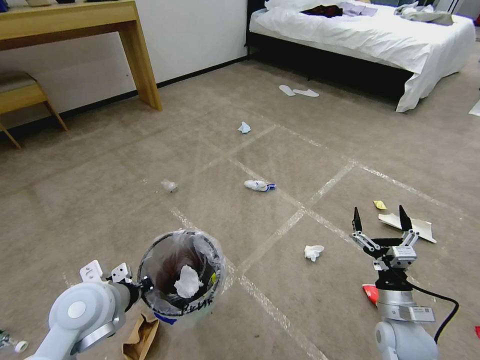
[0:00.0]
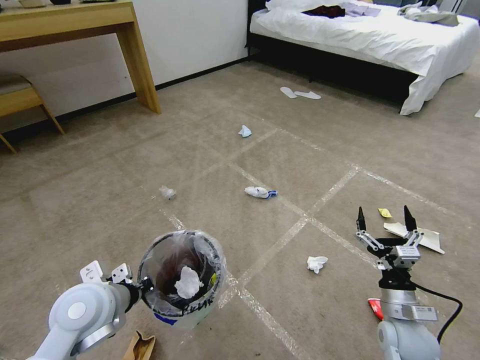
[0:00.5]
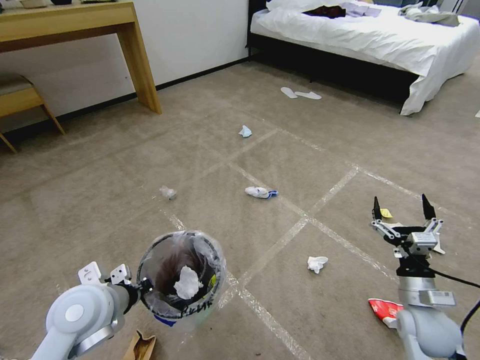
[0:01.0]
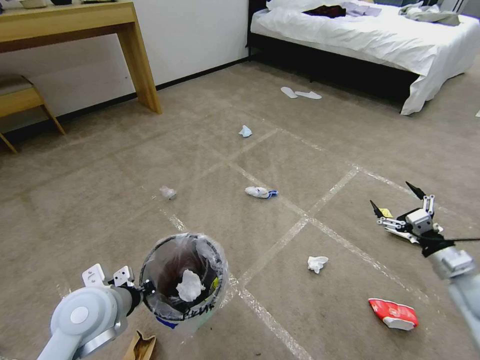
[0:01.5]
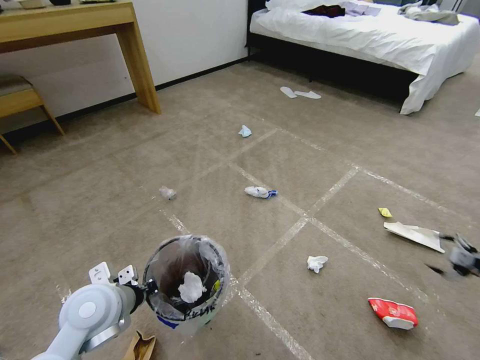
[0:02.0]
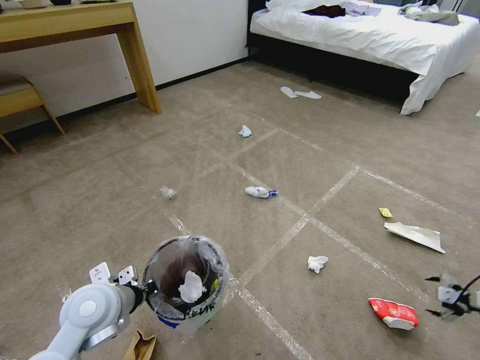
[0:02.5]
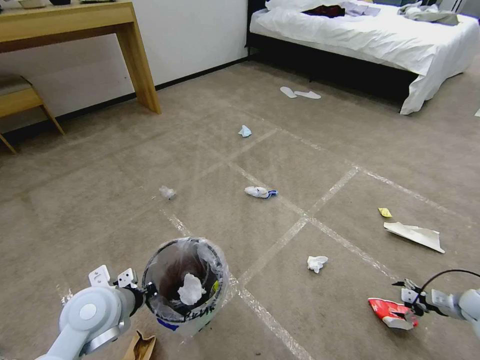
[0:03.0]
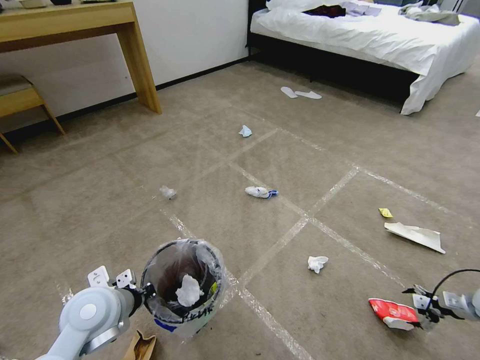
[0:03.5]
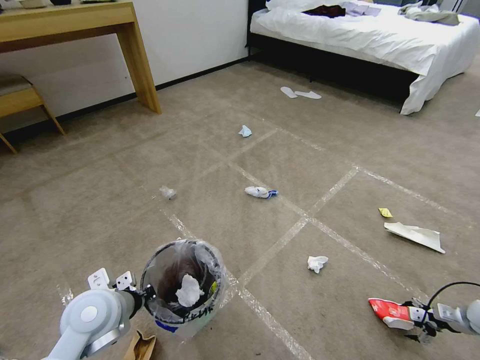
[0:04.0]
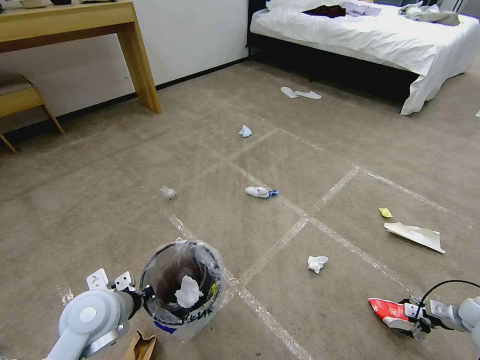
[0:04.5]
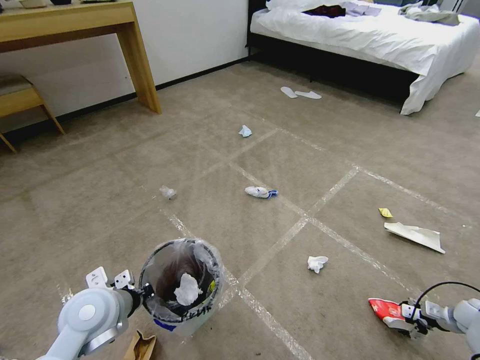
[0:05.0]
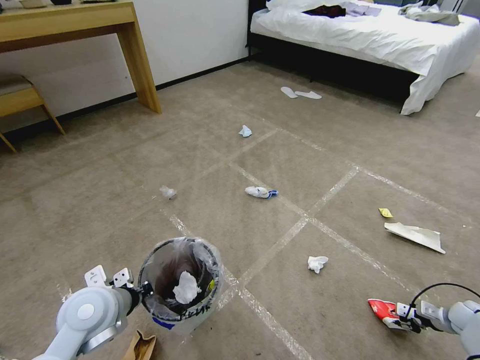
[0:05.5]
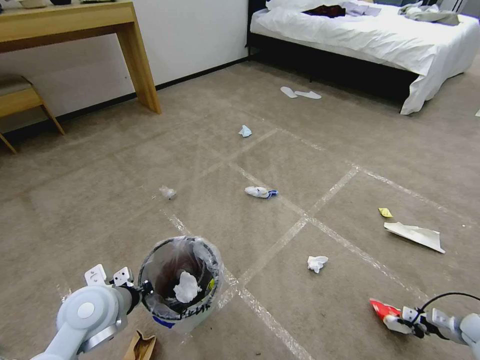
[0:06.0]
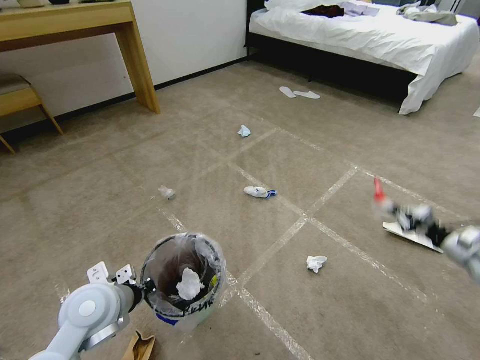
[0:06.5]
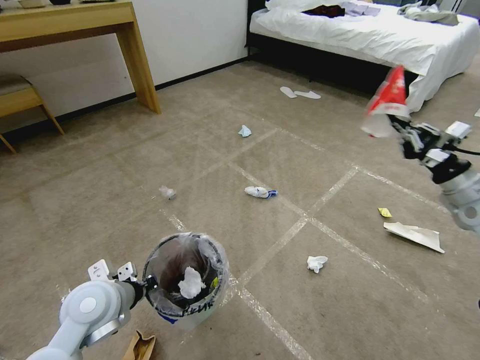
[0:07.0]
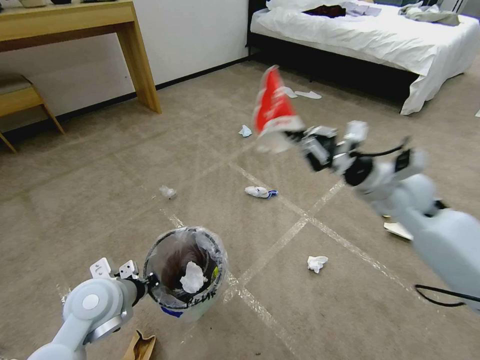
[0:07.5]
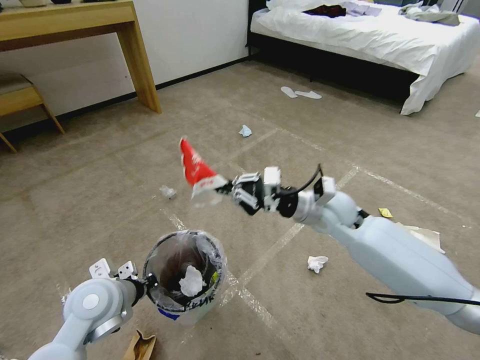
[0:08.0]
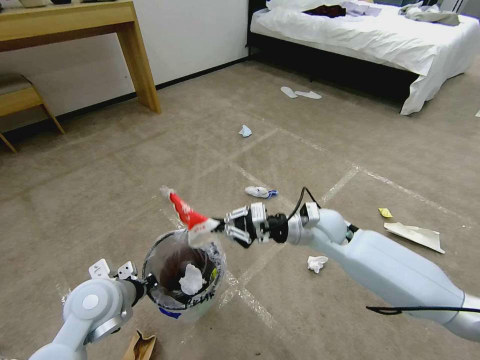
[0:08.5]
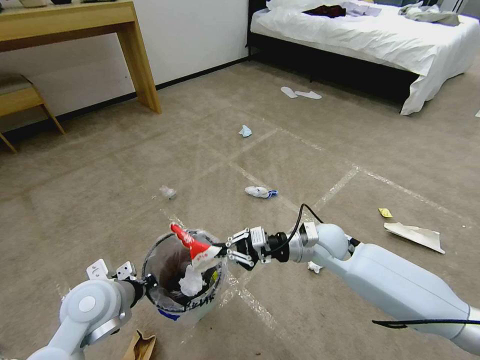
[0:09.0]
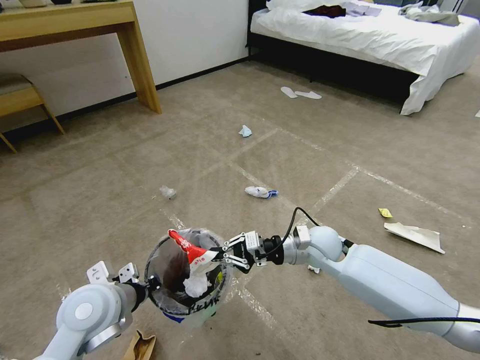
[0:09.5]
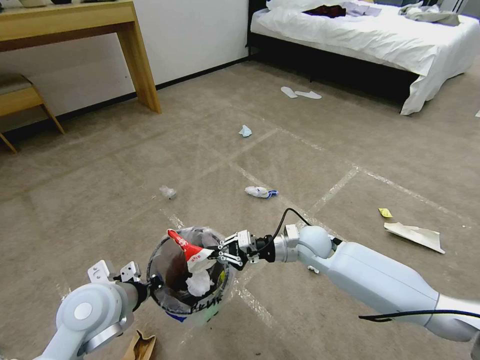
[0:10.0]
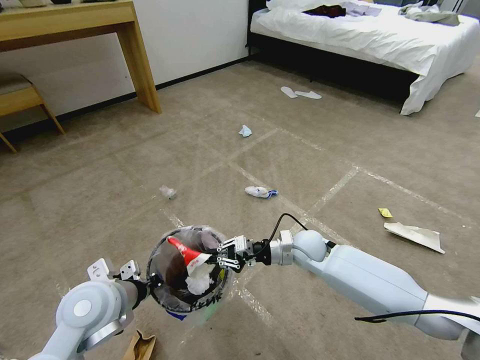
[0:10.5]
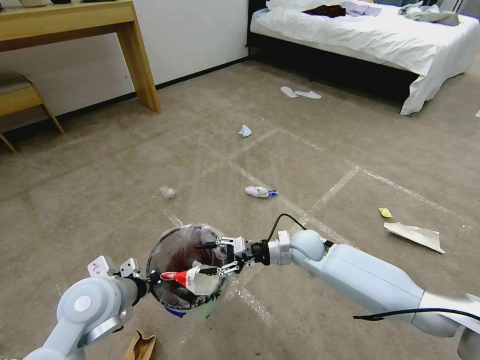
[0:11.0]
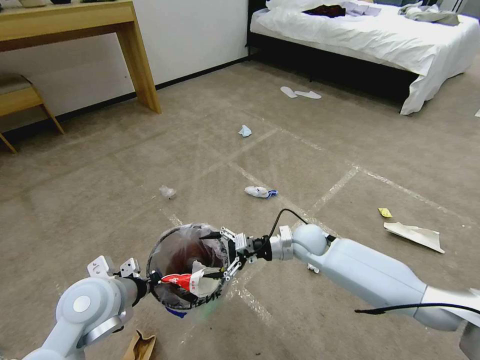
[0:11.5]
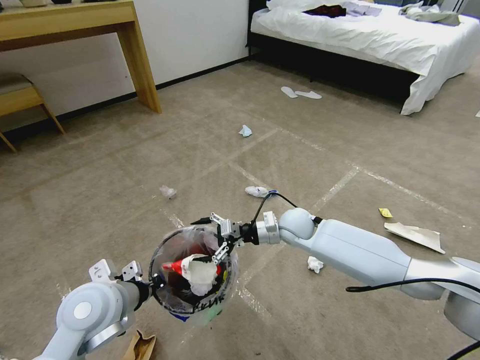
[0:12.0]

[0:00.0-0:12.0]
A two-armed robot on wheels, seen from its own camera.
Task of the whole recording: Pick up the trash bin and place the garbage on the floor into it.
0:00.0 to 0:02.0: The right gripper is displaced to the right by some 35 cm.
0:02.0 to 0:04.0: The right gripper shifts roughly 20 cm downward.
0:04.0 to 0:06.0: The right gripper closes.
0:06.0 to 0:08.0: The right gripper is displaced to the left and upward by roughly 50 cm.
0:08.0 to 0:10.0: The right gripper moves downward, about 10 cm.
0:10.0 to 0:12.0: The right gripper moves some 5 cm, and opens its fingers.

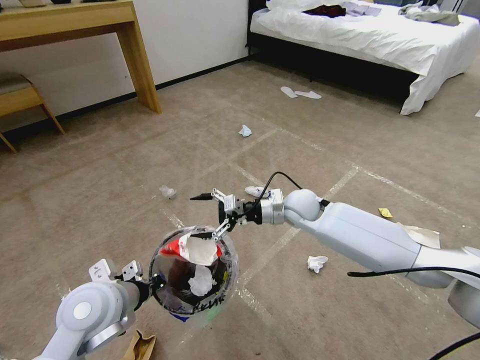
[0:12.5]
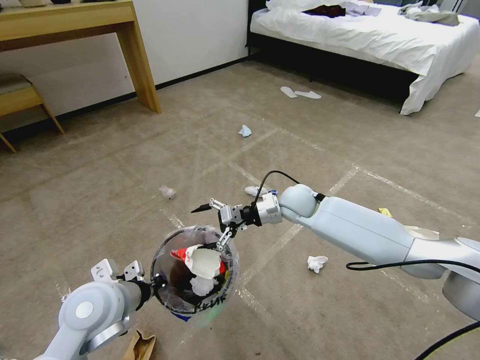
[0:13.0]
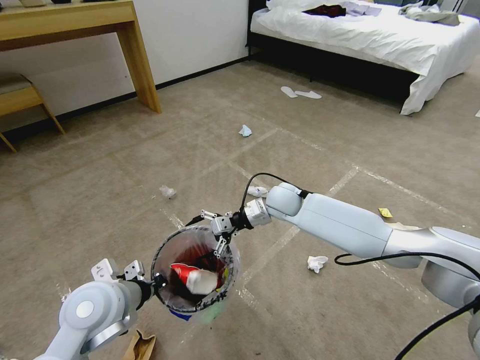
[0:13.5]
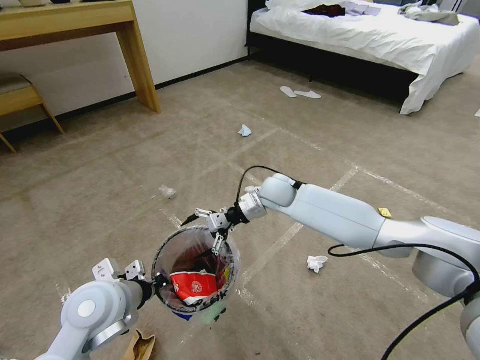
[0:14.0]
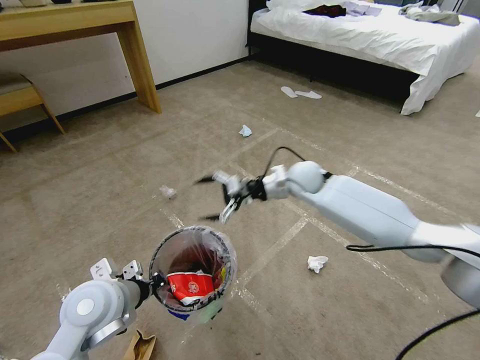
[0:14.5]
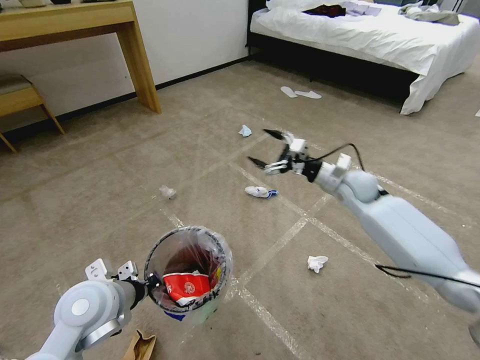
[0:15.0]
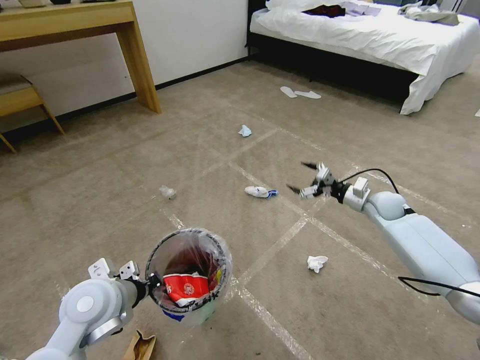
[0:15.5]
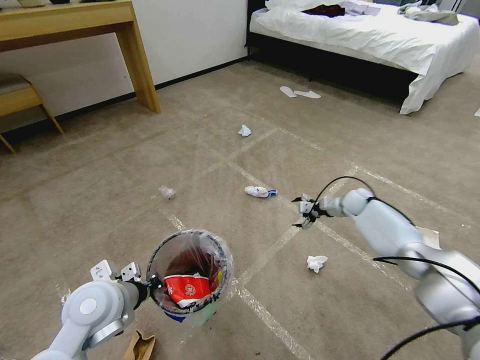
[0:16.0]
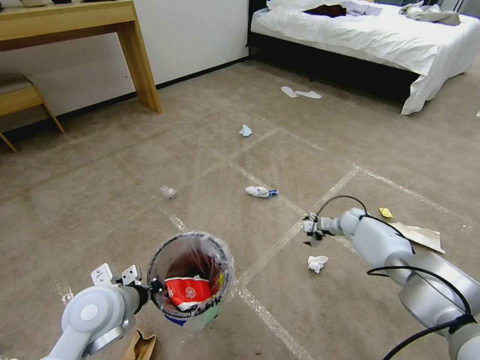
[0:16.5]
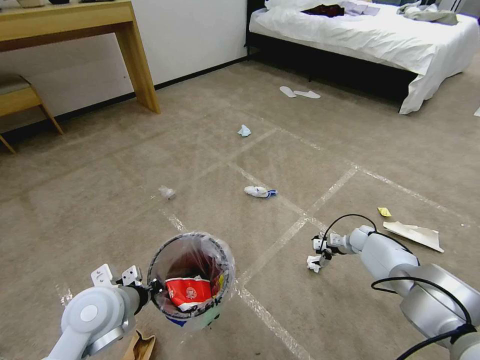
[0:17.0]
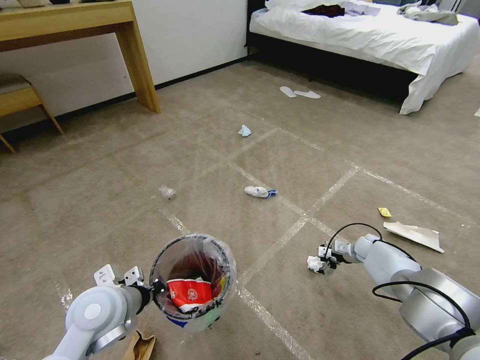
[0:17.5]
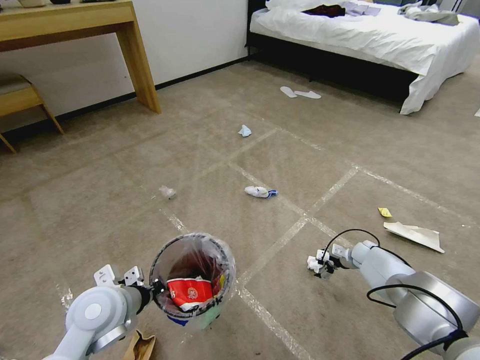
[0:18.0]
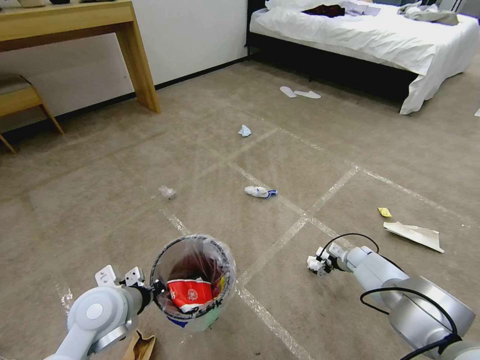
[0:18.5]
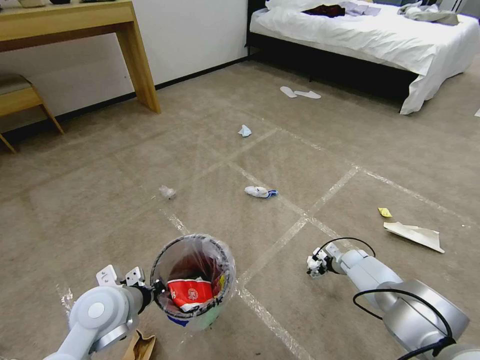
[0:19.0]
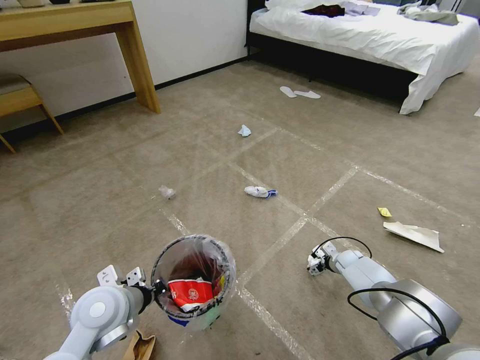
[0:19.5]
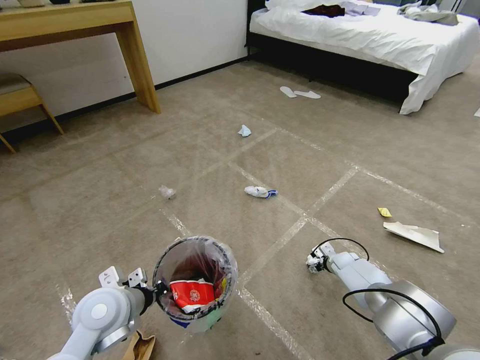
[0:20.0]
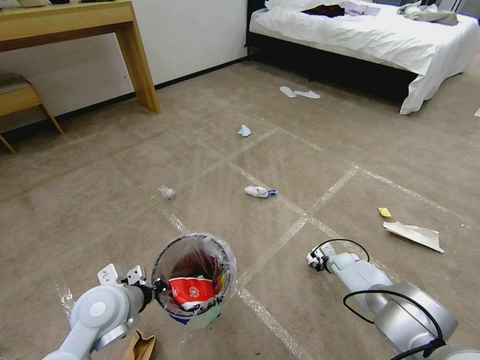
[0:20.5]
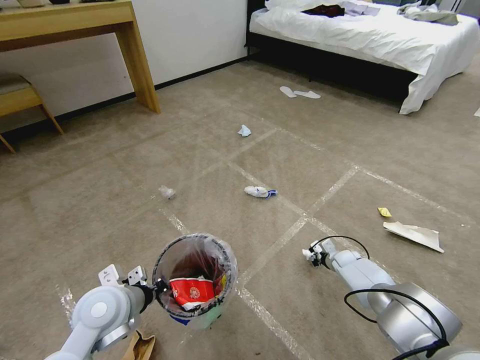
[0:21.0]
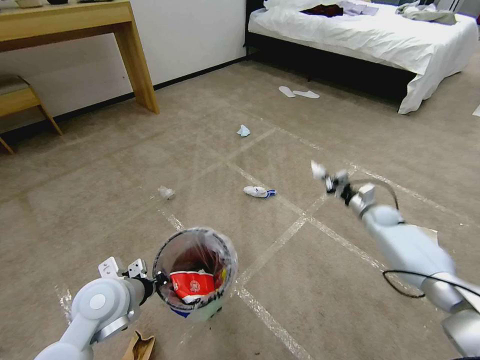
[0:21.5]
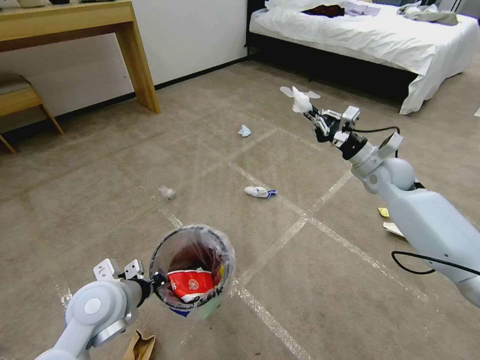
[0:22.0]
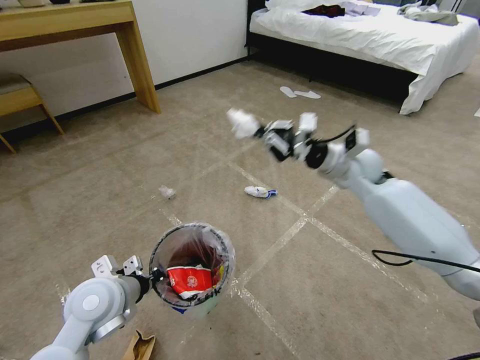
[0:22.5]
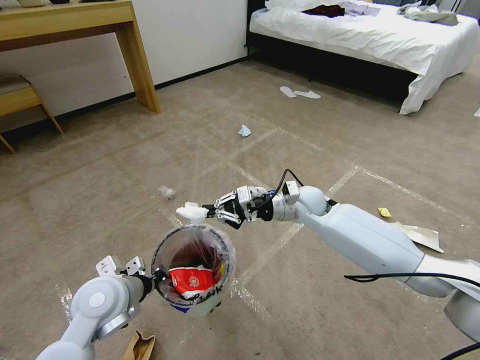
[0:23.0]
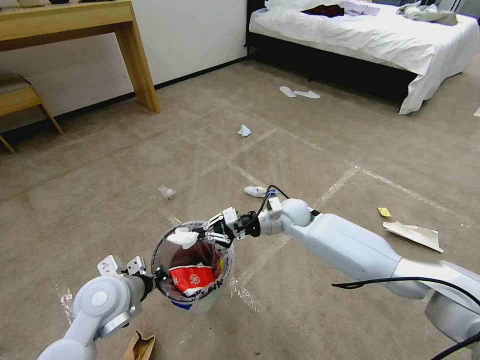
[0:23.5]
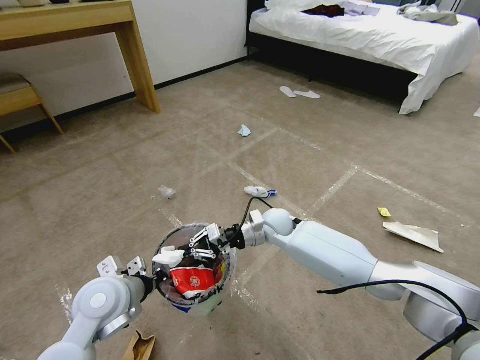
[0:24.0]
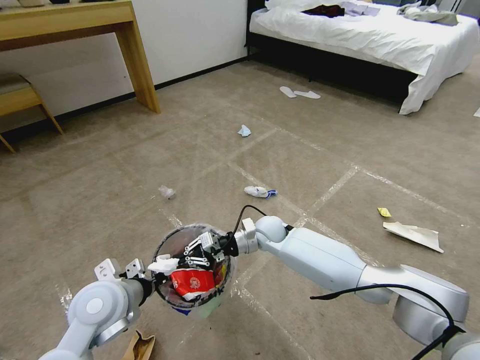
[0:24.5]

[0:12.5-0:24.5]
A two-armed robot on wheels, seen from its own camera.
Task of the whole recording: Pick up the trash bin and place the garbage on the floor into it.
0:12.5 to 0:14.5: The right gripper shifts about 5 cm upward and forward.
0:14.5 to 0:16.5: The right gripper travels to the right and downward by some 30 cm.
0:16.5 to 0:18.5: The right gripper travels downward and backward by approximately 10 cm.
0:18.5 to 0:20.5: The right gripper shifts by about 5 cm, and closes up.
0:20.5 to 0:22.5: The right gripper travels upward by some 40 cm.
0:22.5 to 0:24.5: The right gripper moves downward and to the left, roughly 30 cm.

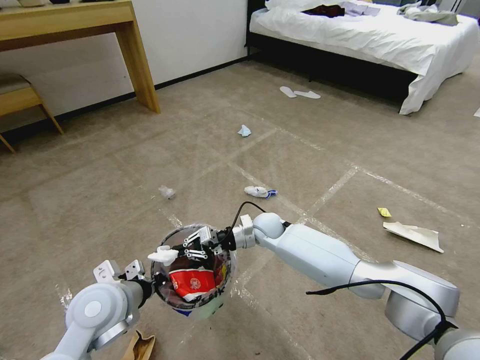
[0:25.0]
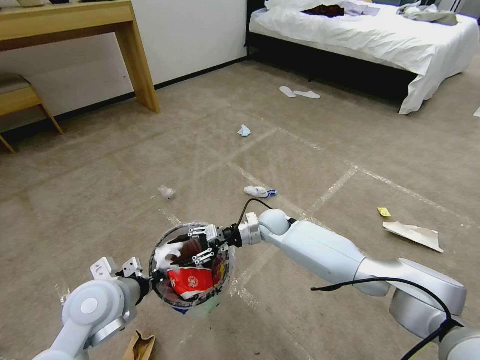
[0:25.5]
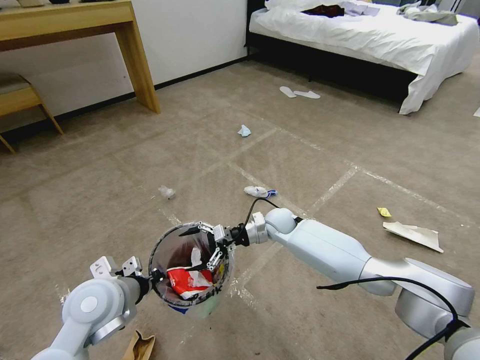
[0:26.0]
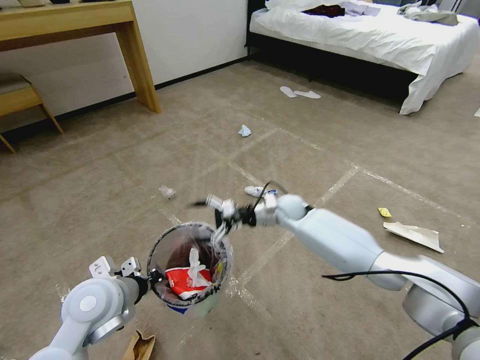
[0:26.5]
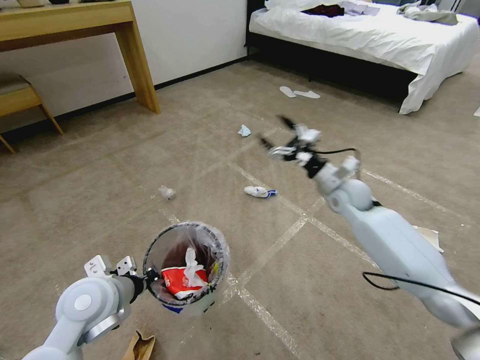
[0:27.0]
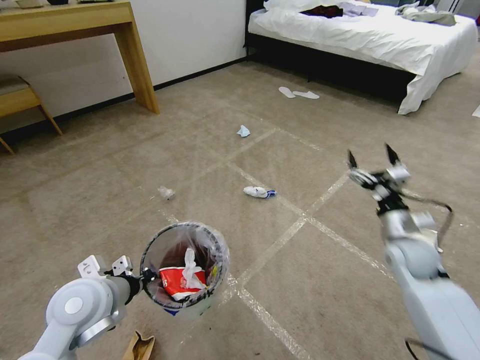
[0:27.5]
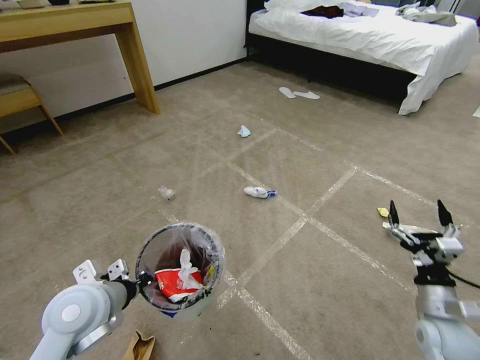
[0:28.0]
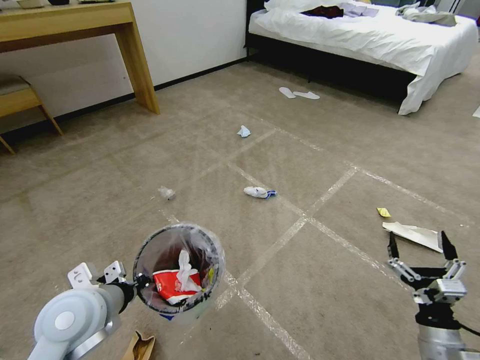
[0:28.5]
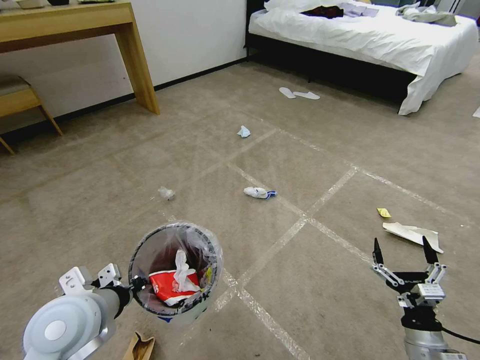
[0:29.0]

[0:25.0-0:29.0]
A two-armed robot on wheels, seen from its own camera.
Task of the whole recording: Pick up the trash bin and place the garbage on the floor into it.
0:25.0 to 0:27.0: The right gripper shifts approximately 25 cm to the right and upward, and opens its fingers.
0:27.0 to 0:29.0: The right gripper is displaced backward and downward by roughly 40 cm; the left gripper ends up approximately 5 cm from where it was.
